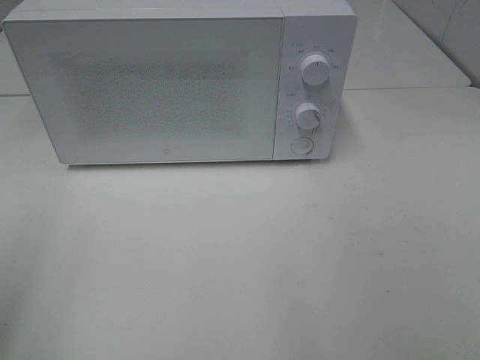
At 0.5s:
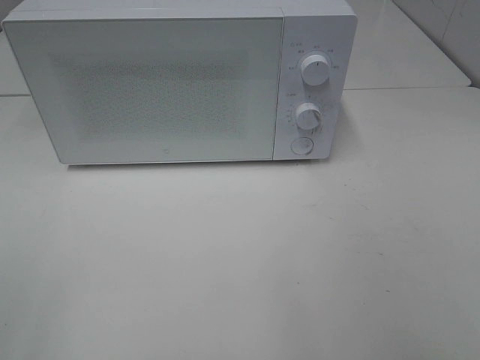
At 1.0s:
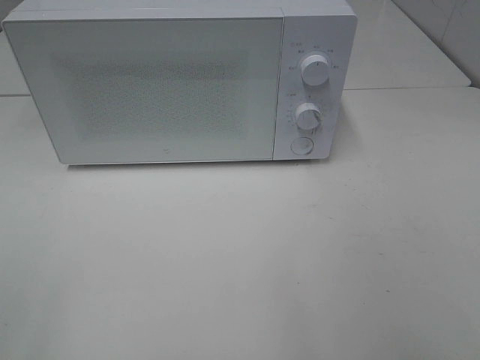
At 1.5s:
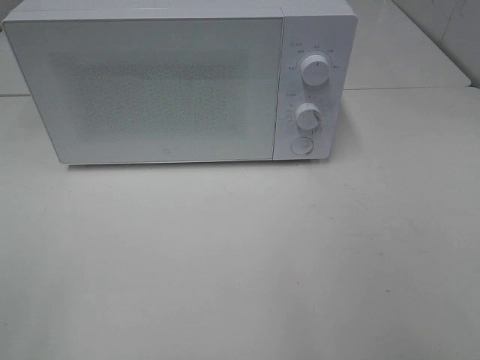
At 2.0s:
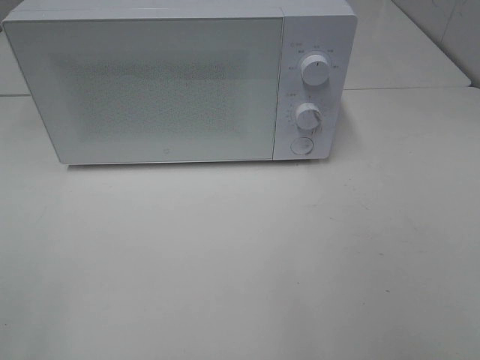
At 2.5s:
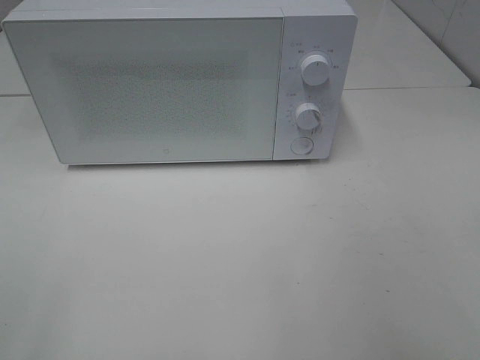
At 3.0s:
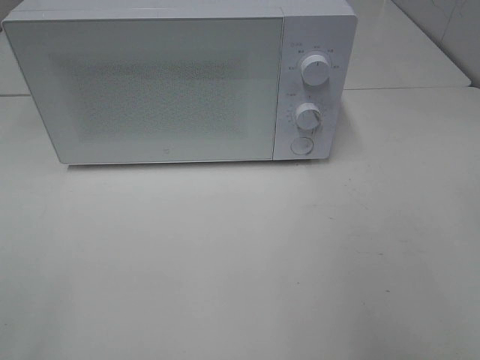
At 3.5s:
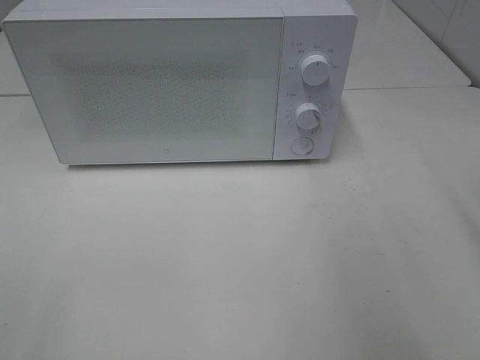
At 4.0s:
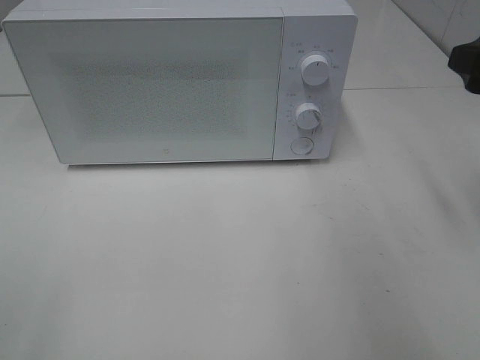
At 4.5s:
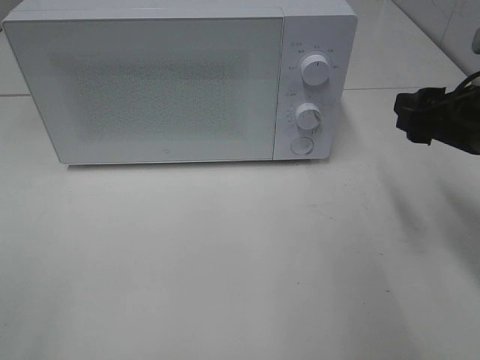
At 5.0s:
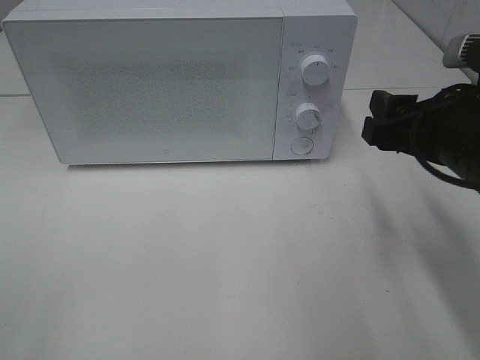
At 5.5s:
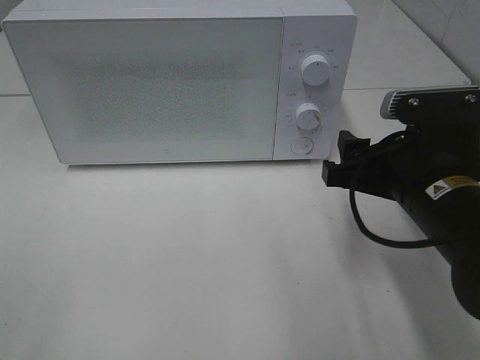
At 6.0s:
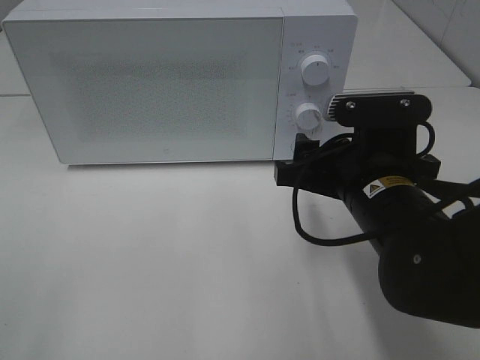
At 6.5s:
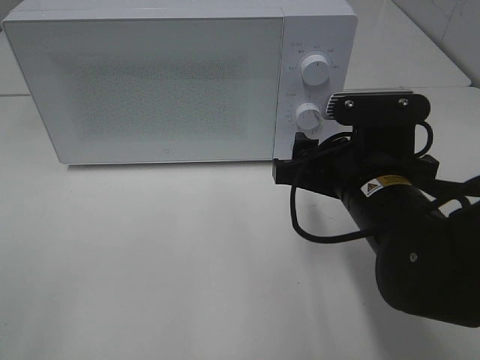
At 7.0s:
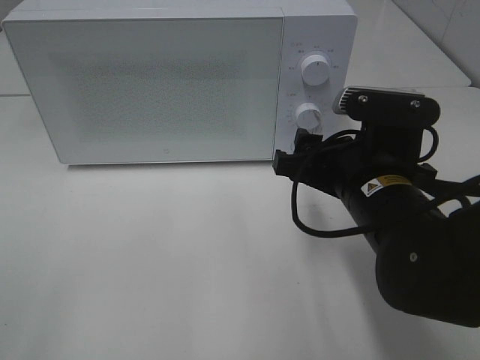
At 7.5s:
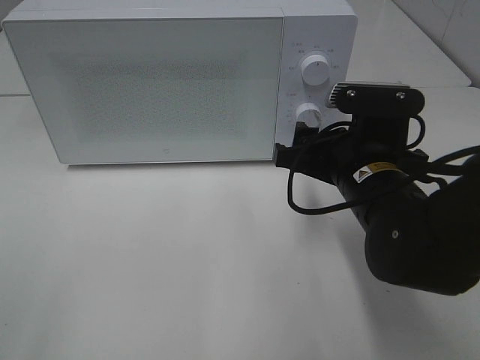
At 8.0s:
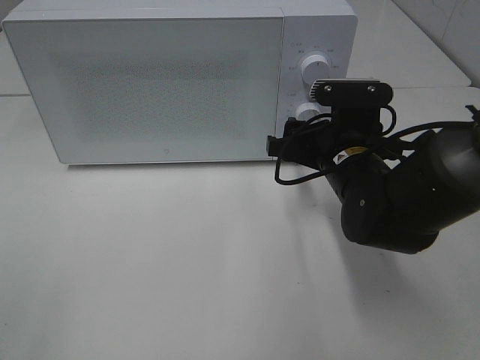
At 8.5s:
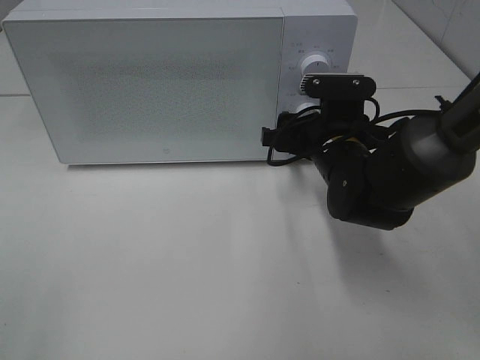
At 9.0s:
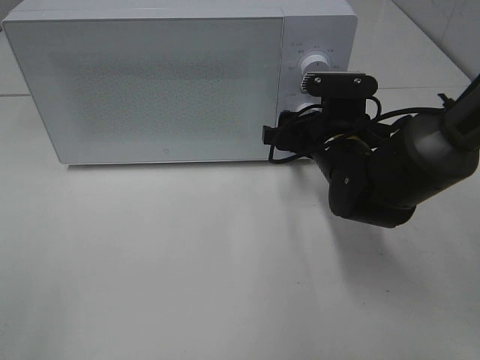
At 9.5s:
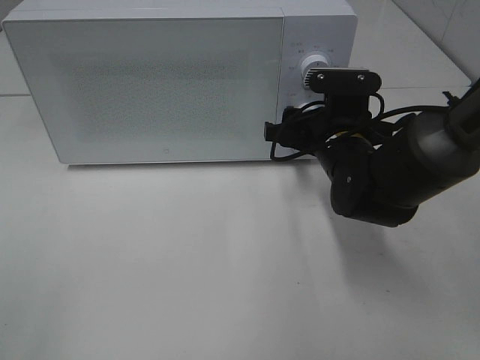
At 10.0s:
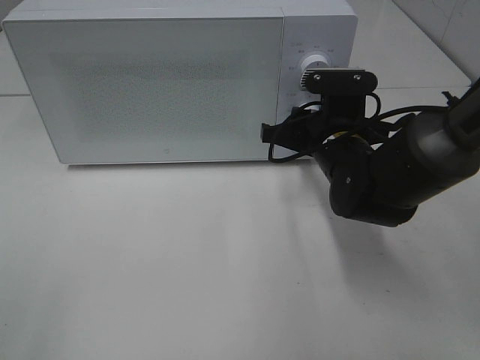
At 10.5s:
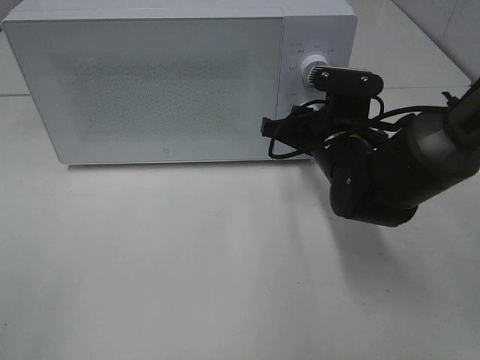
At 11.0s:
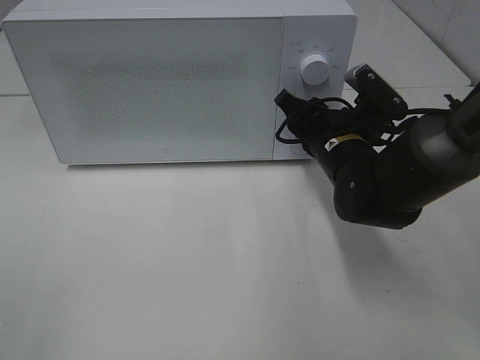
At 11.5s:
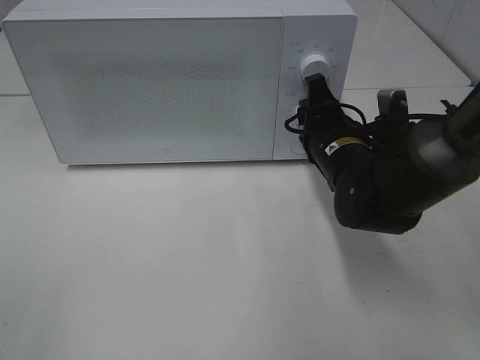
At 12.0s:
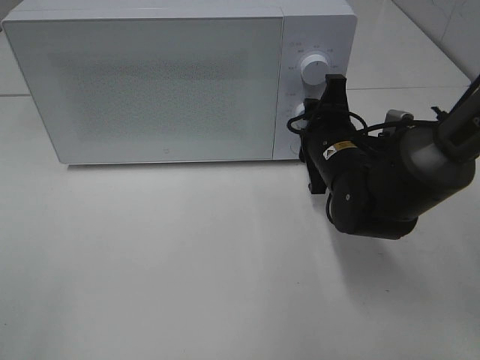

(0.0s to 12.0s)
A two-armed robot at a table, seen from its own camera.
Task of the whole recording: Heat Sandwich.
2.0s - 4.0s: The right gripper goes some 25 cm forward.
4.0s - 6.0s: The right gripper heads to the left and downward, covering approximately 20 cm.
6.0s - 8.0s: The right gripper heads forward, covering roughly 10 cm.
8.0s - 10.0s: The right gripper closes up.

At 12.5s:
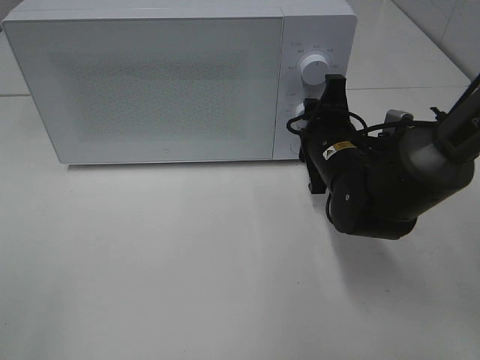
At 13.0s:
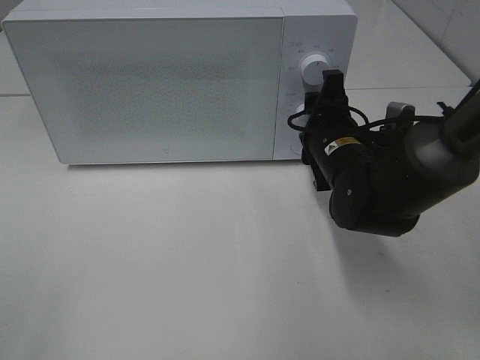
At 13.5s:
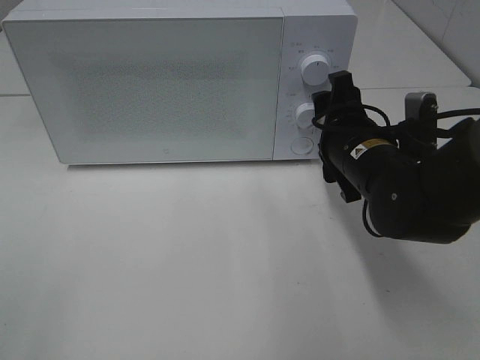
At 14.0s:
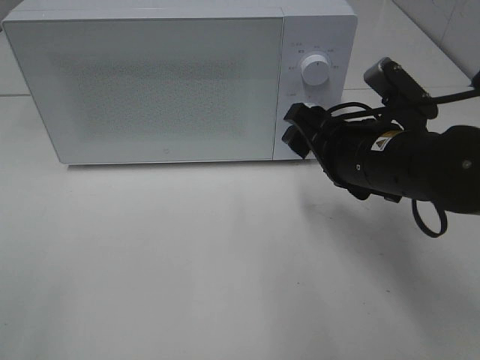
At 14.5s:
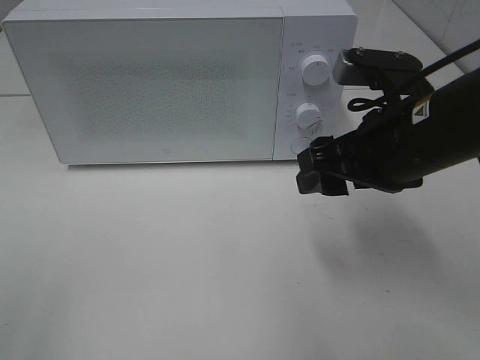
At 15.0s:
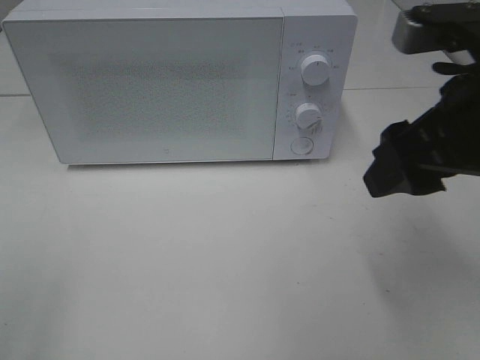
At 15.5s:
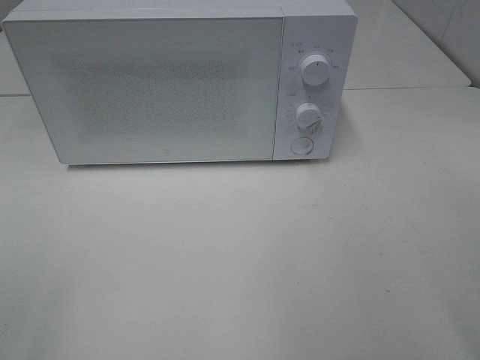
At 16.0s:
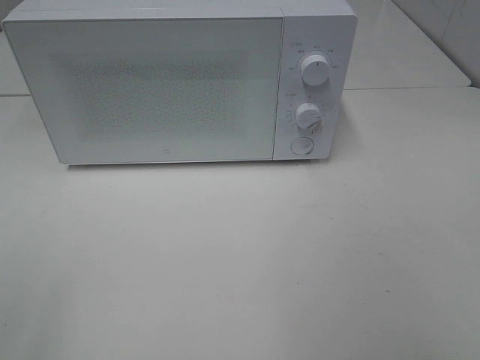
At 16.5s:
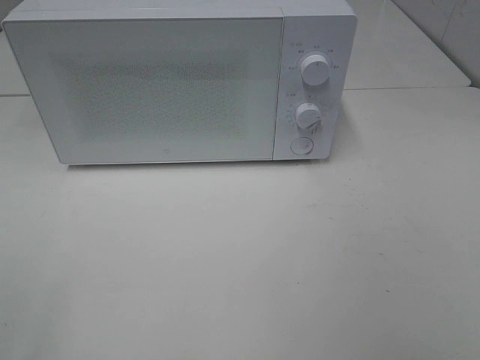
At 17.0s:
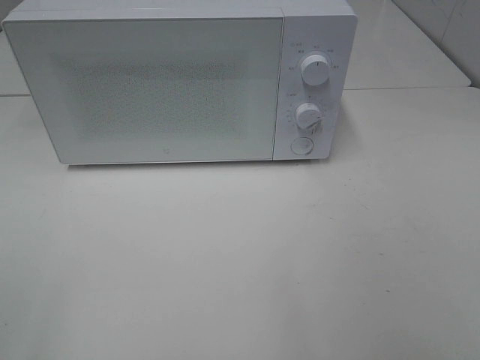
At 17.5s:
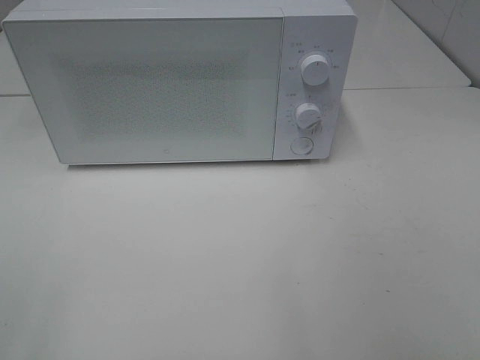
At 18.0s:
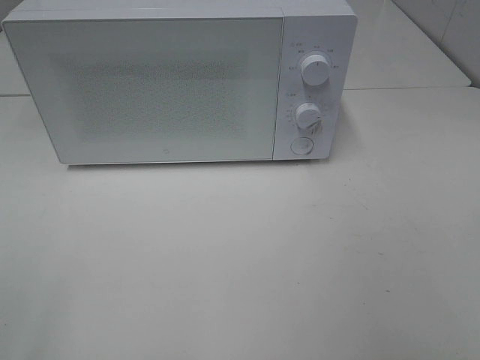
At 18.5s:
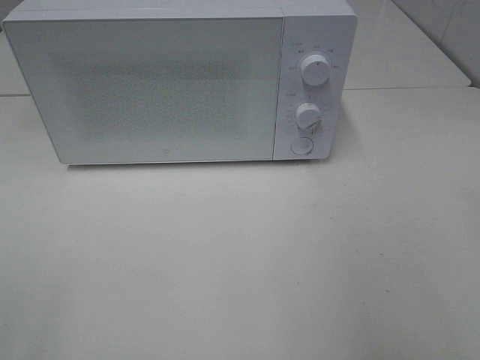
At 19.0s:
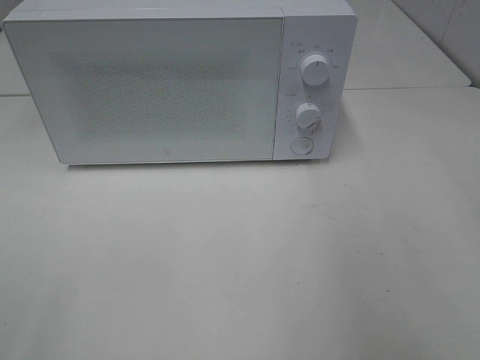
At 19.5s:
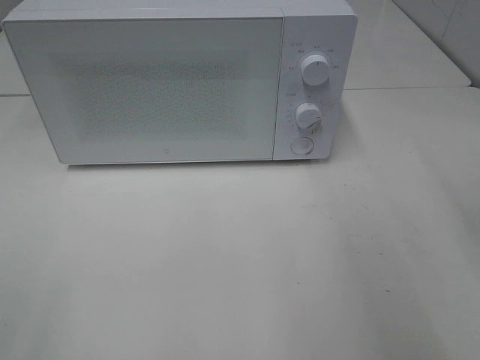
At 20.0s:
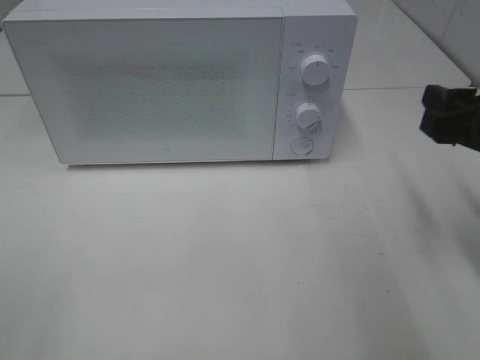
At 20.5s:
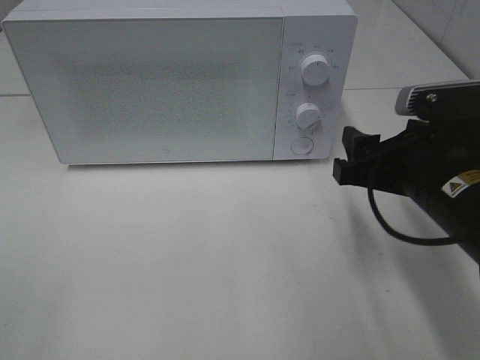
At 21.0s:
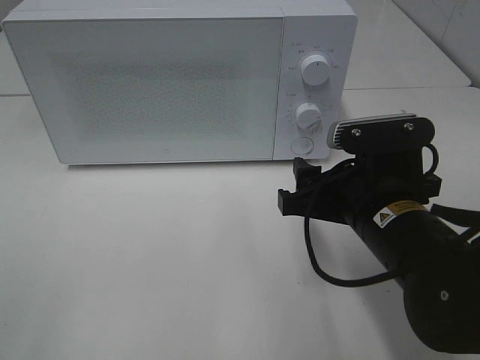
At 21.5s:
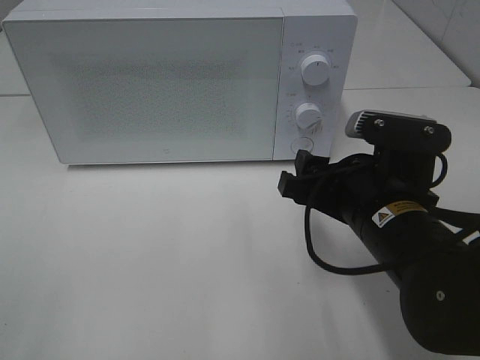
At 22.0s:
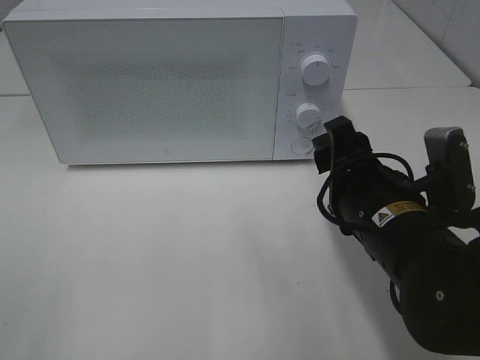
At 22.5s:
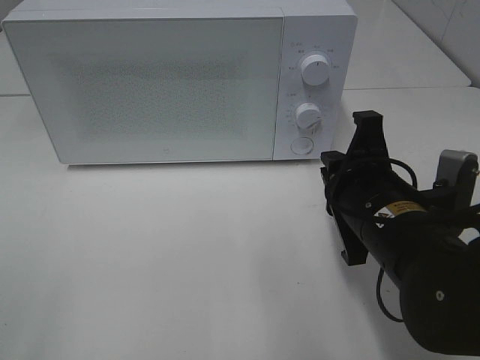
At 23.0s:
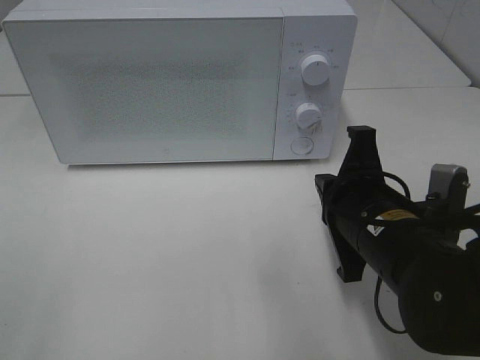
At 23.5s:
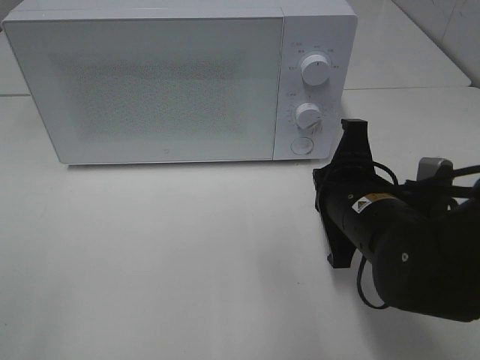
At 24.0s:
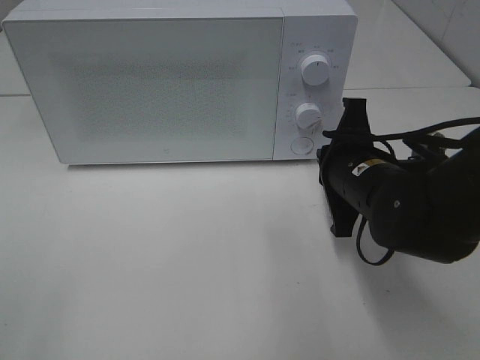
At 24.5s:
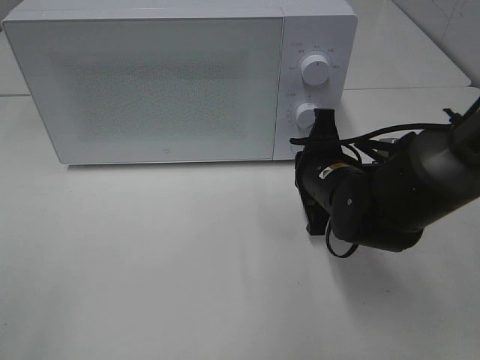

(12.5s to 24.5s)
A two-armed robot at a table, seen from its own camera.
Task of the whole recording: Heat Sandwich.
12.5s - 14.5s: The right gripper is displaced upward and backward by about 15 cm.
14.5s - 16.5s: The right gripper shifts roughly 30 cm backward, to the right and upward.
18.5s - 20.5s: The right gripper heads downward, forward and to the left, covering approximately 20 cm.
20.5s - 22.5s: The right gripper travels to the left by about 5 cm, and closes.
22.5s - 24.5s: The right gripper moves forward, roughly 10 cm.

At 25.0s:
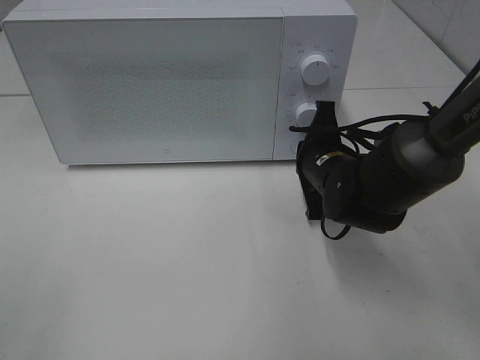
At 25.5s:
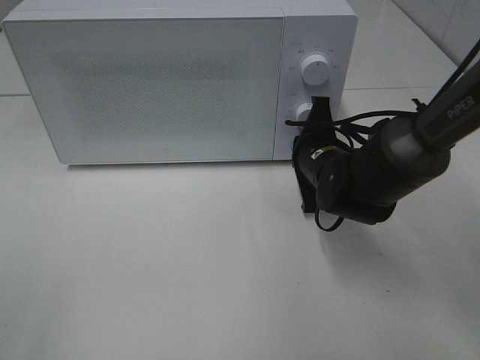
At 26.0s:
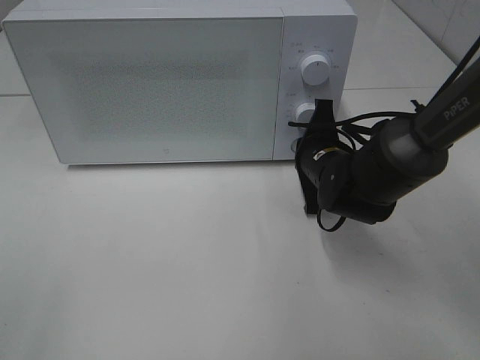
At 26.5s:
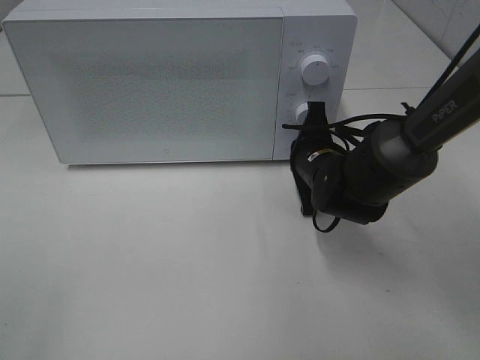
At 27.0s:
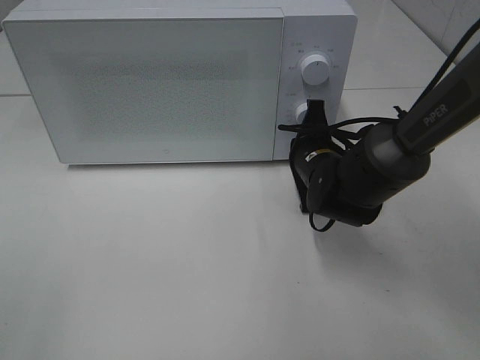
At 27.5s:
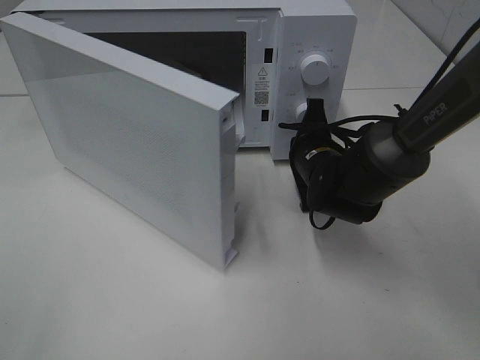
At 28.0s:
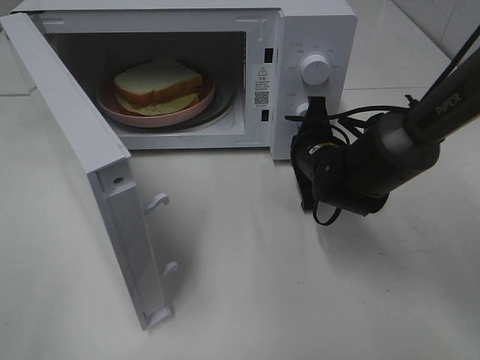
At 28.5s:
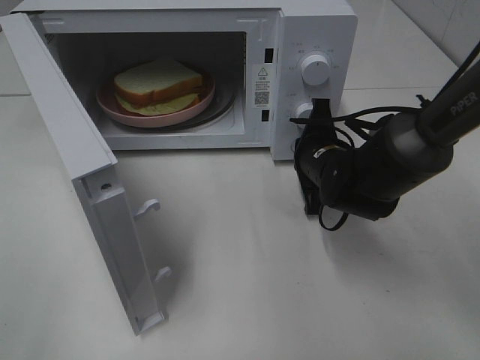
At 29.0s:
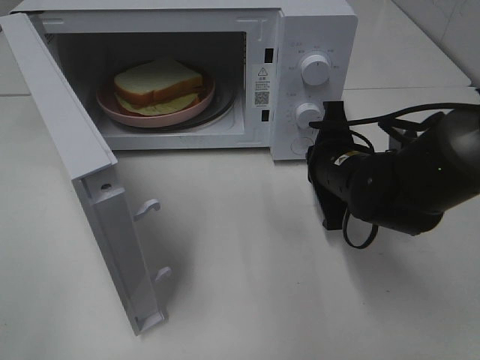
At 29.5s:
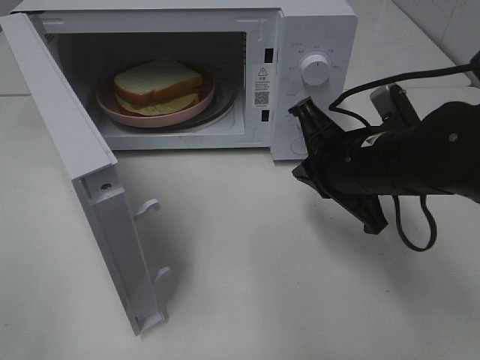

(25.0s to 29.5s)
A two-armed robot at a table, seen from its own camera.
Task of the whole recording: Heat Sandwich.
Step, 25.0s - 29.0s: Right hand: press the switch.
25.0s - 27.0s: The grippers stay close to where they were, moving slightly.
27.0s - 29.5s: The right gripper heads backward and upward, covering about 15 cm.
